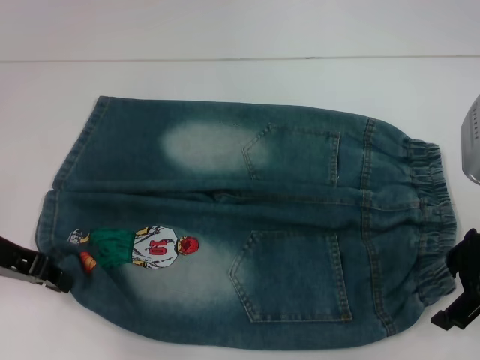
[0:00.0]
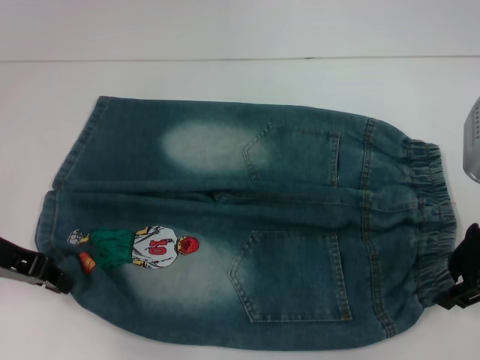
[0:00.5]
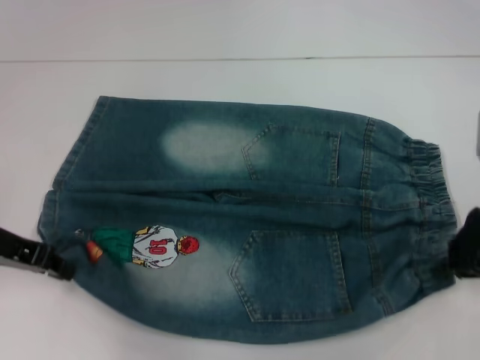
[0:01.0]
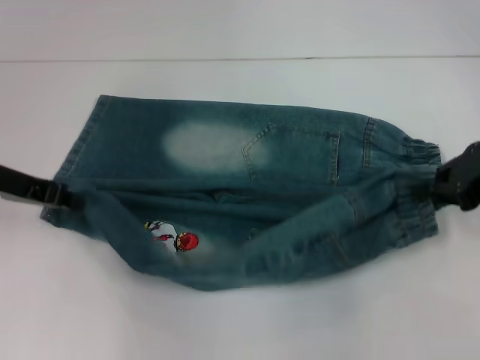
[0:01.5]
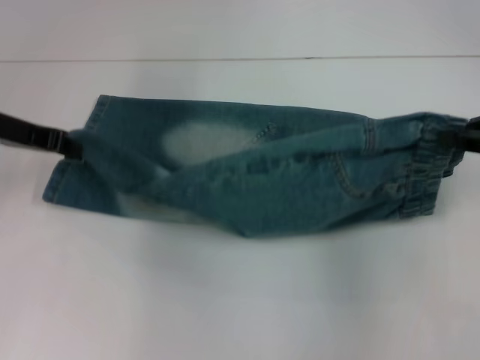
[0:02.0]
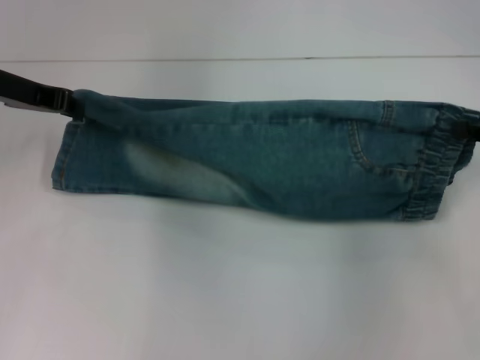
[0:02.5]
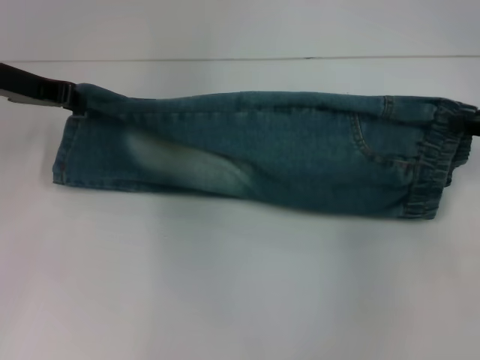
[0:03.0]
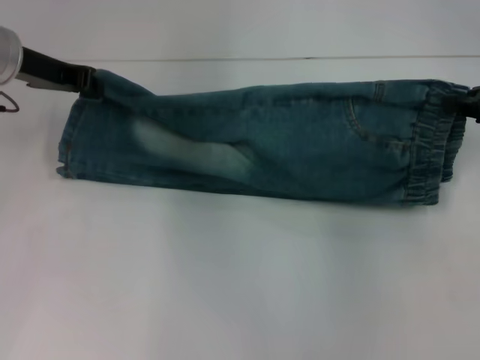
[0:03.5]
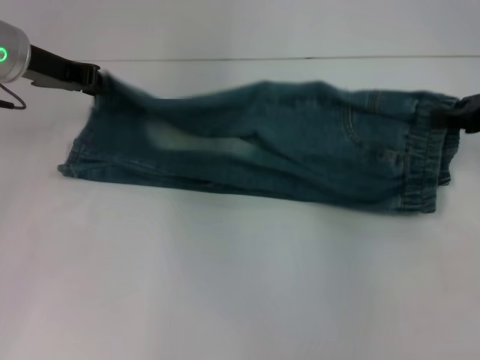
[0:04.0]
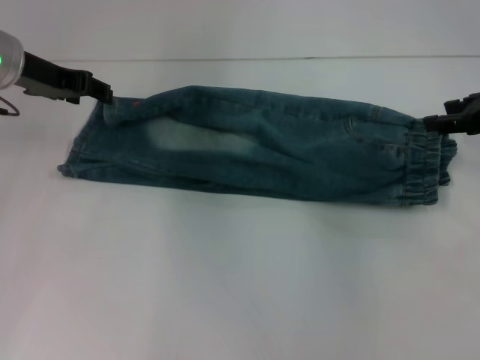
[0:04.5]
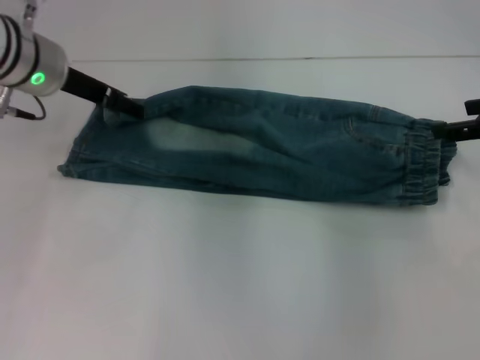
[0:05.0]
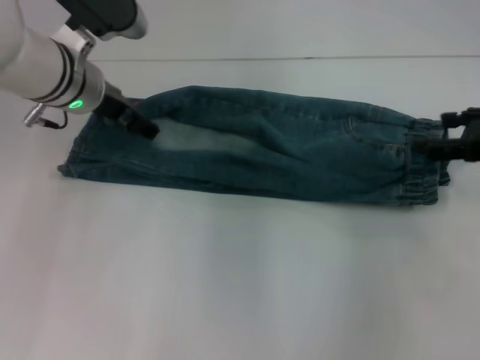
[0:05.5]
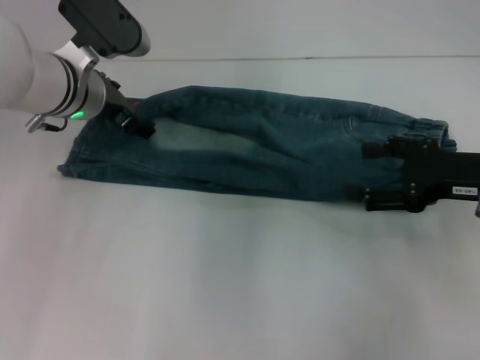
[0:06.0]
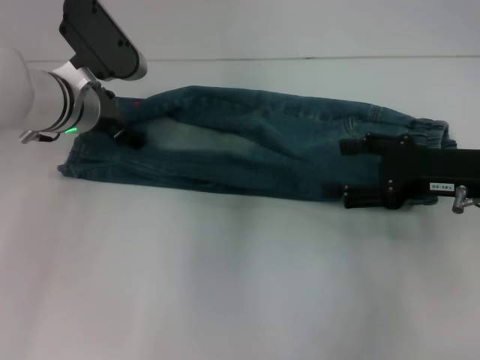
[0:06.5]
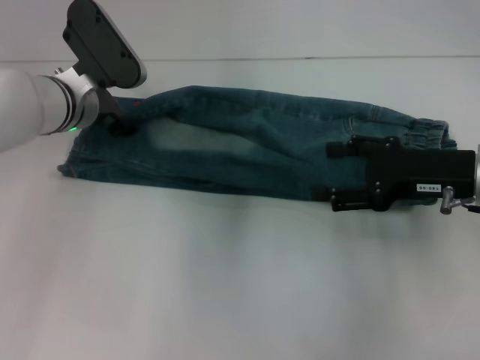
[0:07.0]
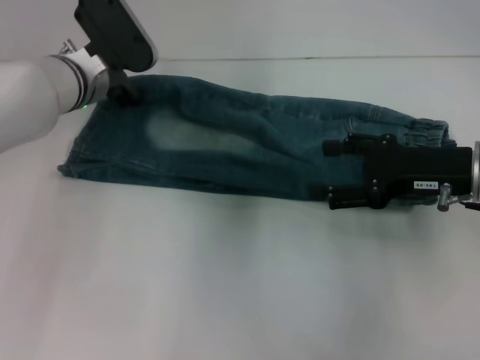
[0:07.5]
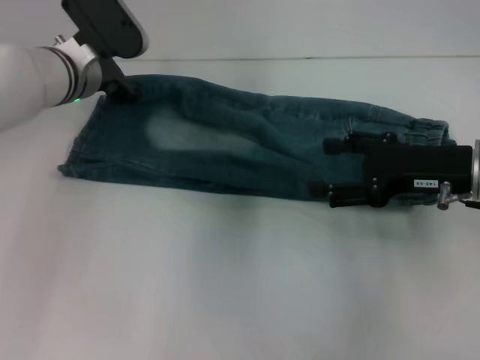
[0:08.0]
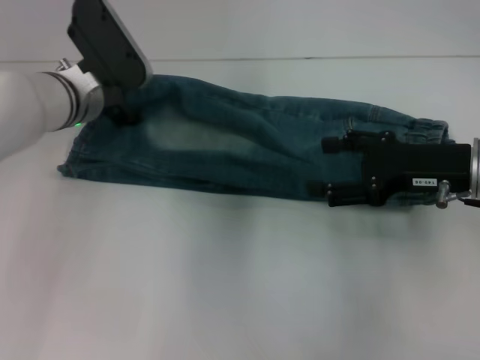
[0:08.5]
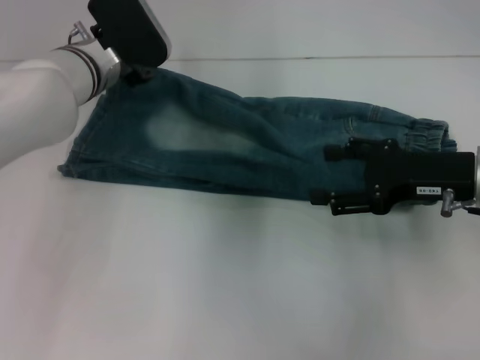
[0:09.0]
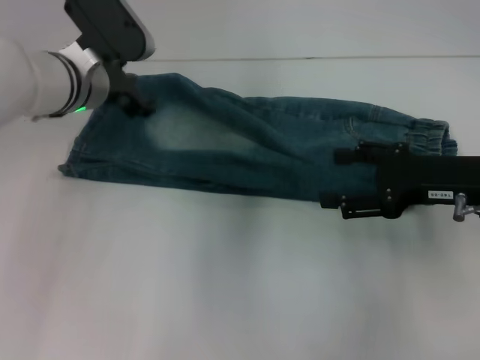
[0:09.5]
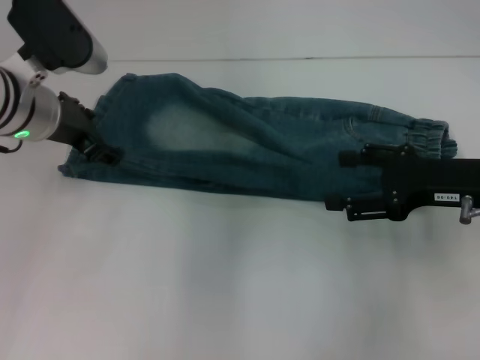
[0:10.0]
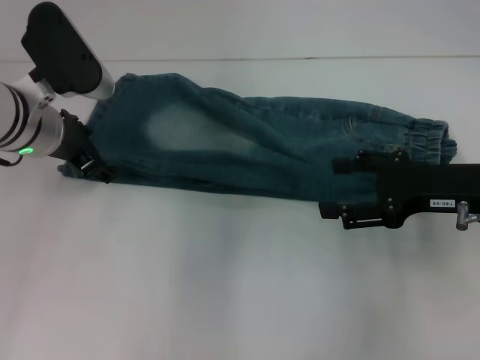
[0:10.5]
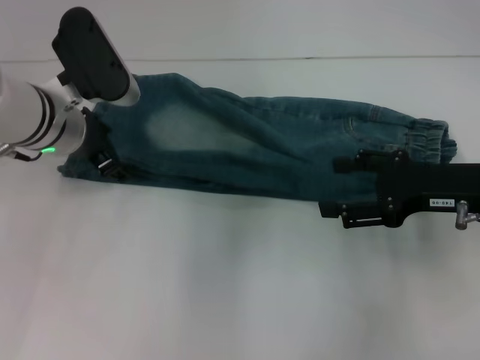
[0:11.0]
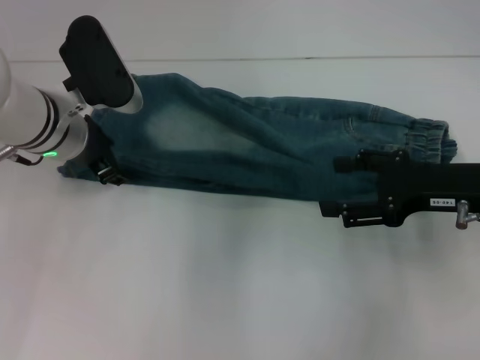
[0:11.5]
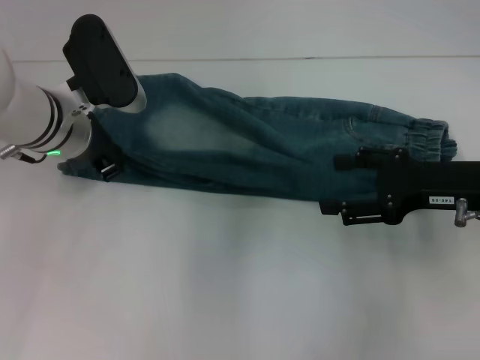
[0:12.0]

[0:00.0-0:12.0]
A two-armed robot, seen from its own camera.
Step, 0:00.5 to 0:04.5: Fold upward with your right hand.
0:00.0 to 0:02.0: The left gripper shifts roughly 5 cm forward, while the right gripper moves to the right, some 5 cm, and closes up.
0:02.0 to 0:04.0: The right gripper ends up about 5 cm from where it was. Meanwhile the left gripper goes some 5 cm forward.
0:04.0 to 0:06.0: The right gripper heads backward, covering about 5 cm, and opens up. Meanwhile the left gripper shifts approximately 10 cm to the right and downward, and opens up.
0:08.0 to 0:10.0: The left gripper shifts approximately 5 cm backward.
0:10.0 to 0:12.0: The left gripper closes its fingers.

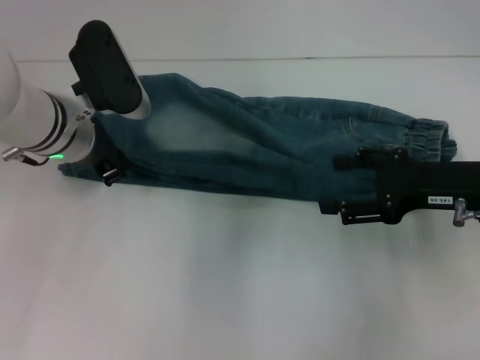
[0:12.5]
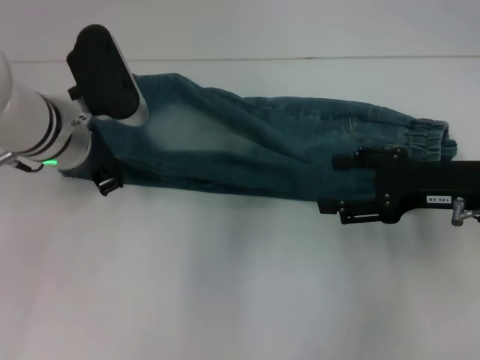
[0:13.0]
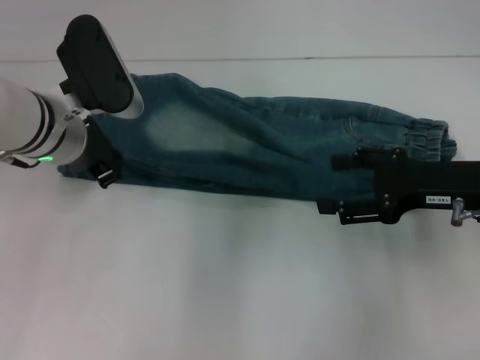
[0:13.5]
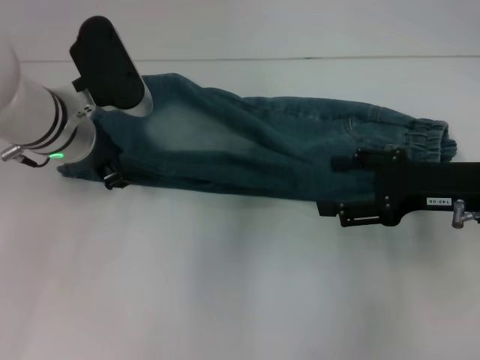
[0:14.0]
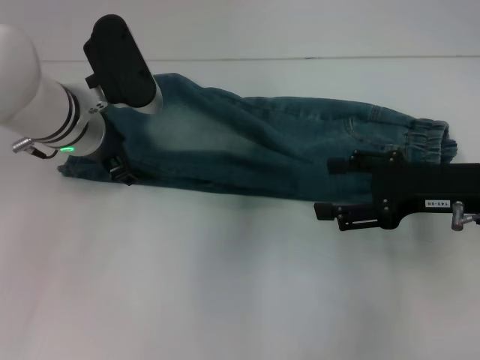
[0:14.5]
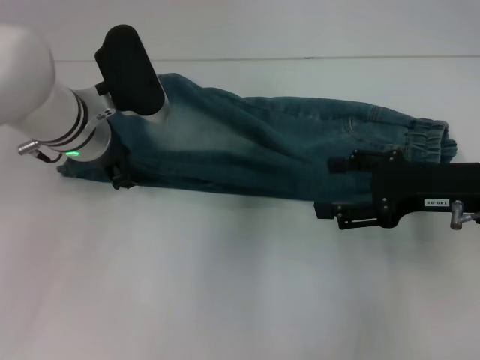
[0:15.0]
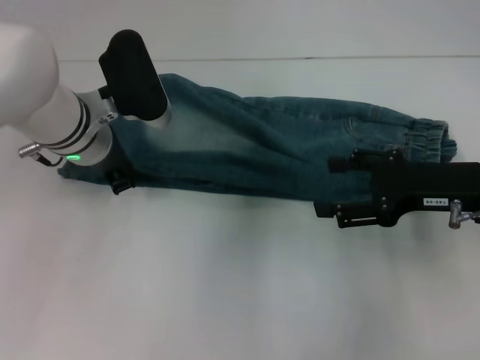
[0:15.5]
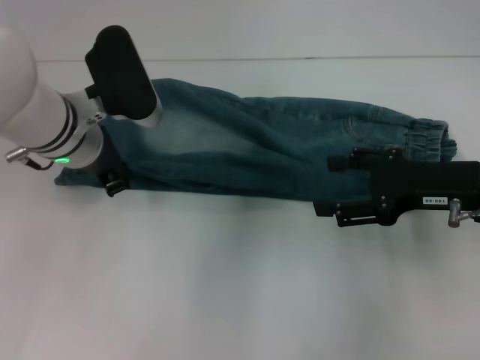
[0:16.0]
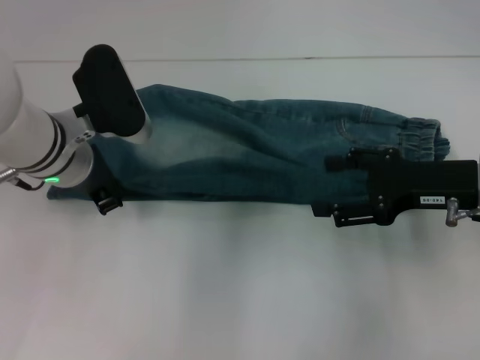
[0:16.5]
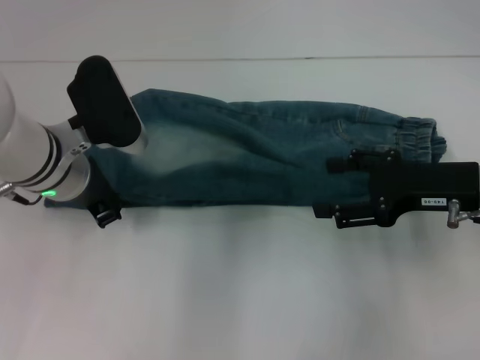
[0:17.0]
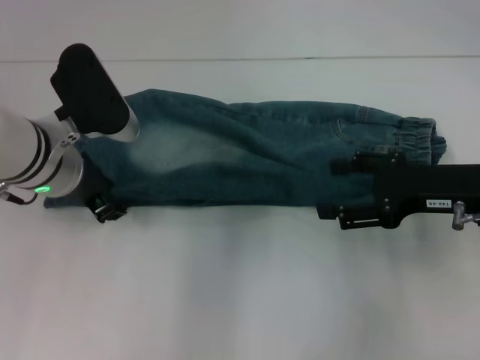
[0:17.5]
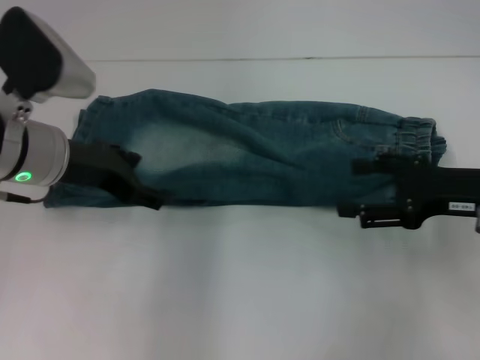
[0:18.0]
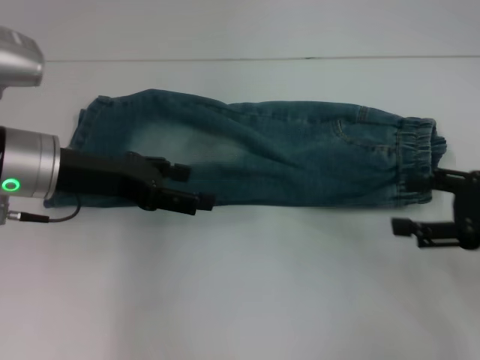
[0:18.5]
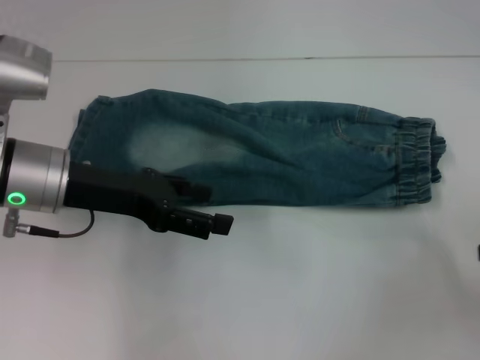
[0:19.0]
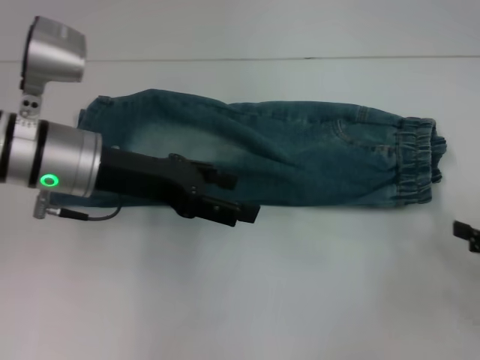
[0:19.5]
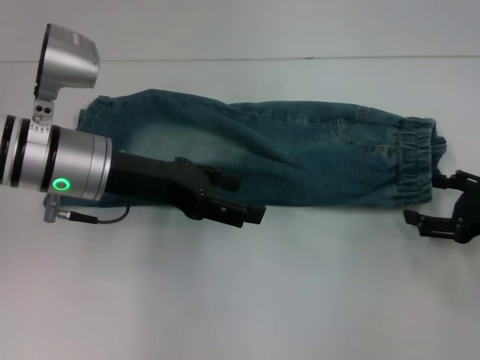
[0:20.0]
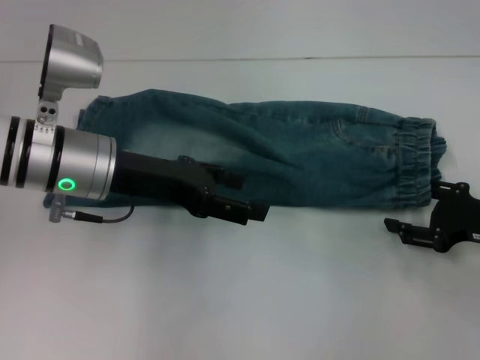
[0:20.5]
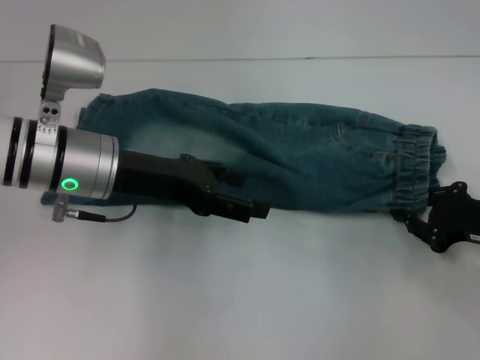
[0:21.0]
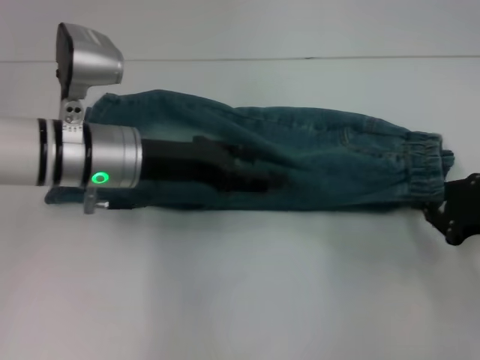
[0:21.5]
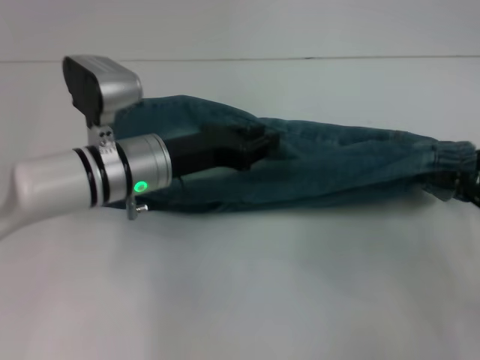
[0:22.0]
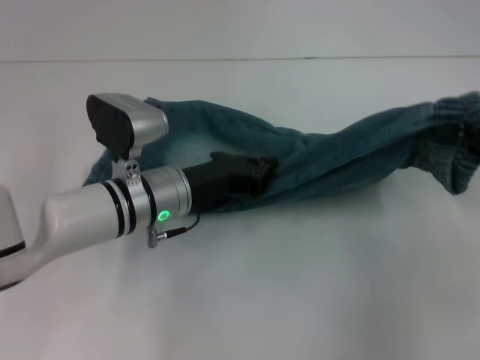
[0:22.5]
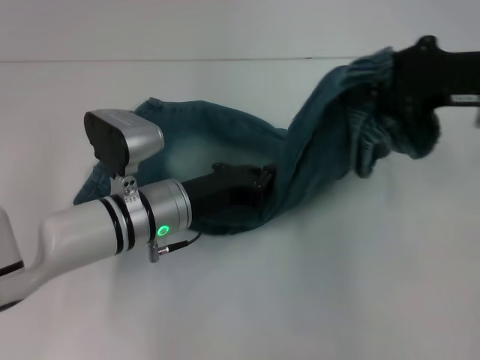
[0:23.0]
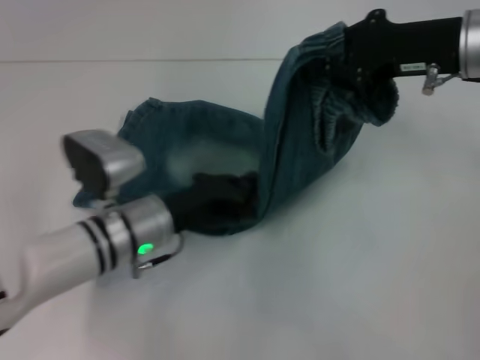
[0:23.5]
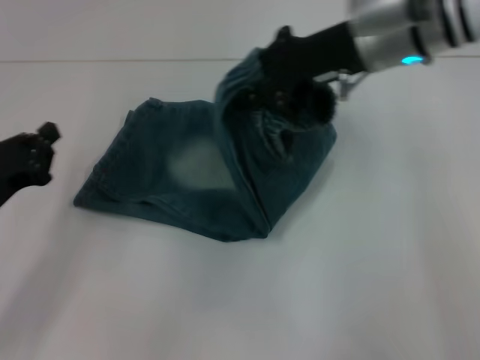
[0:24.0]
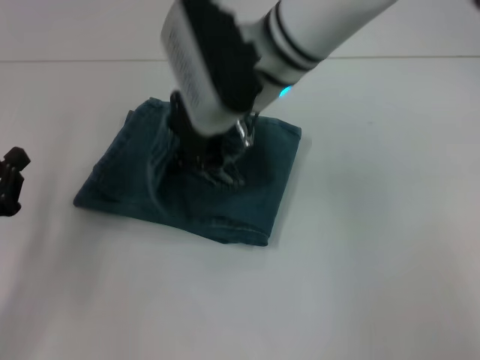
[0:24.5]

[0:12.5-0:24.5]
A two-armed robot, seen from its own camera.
Step, 0:12.5 to 0:20.5: Grab the waistband with your right hand.
Step, 0:21.0 to 0:23.0: Press the middle of the pants with your left hand.
0:12.5 to 0:14.5: The left gripper opens up.
0:14.5 to 0:16.5: The left gripper closes.
0:16.5 to 0:18.5: The left gripper shifts by about 5 cm, and opens its fingers; the right gripper moves to the right, roughly 5 cm.
0:18.5 to 0:20.5: The right gripper is displaced downward by approximately 5 cm, and moves approximately 5 cm backward and comes back.
0:20.5 to 0:22.5: The left gripper travels downward and to the right by about 10 cm, and closes; the right gripper is displaced upward by some 15 cm, and closes up.
0:22.5 to 0:24.5: The right gripper shifts about 30 cm to the left. Meanwhile the left gripper travels to the left and backward by some 25 cm.

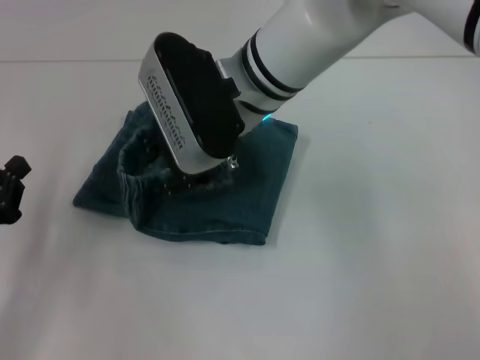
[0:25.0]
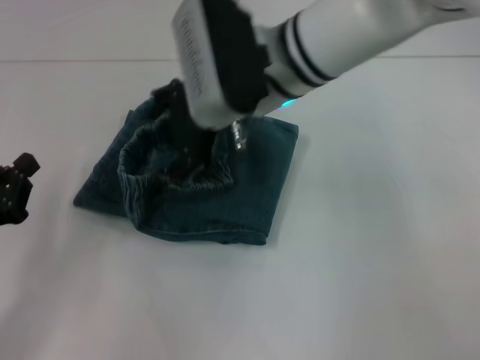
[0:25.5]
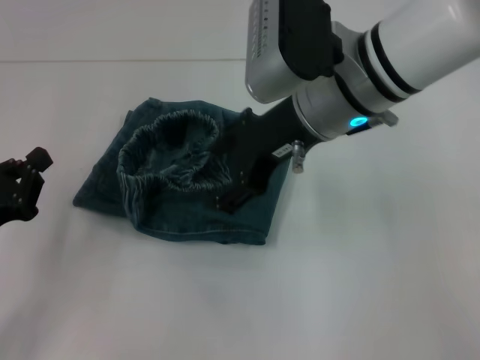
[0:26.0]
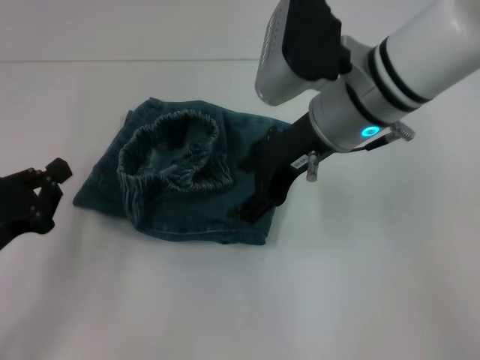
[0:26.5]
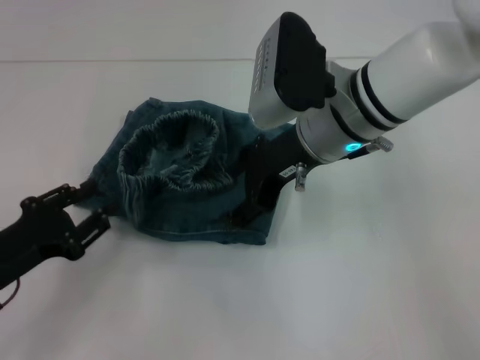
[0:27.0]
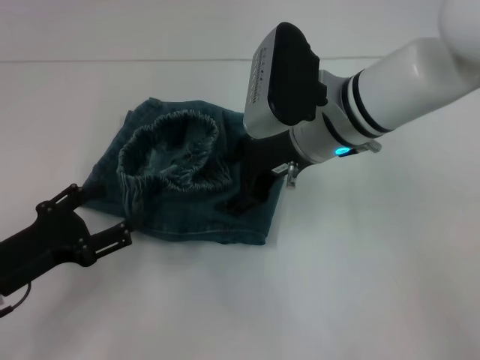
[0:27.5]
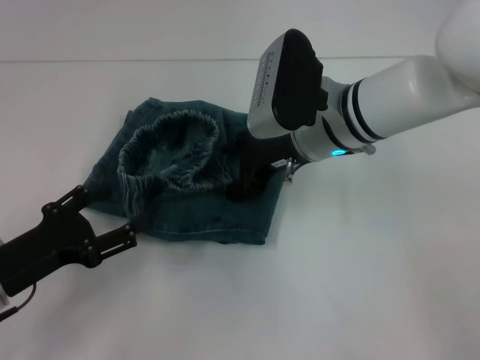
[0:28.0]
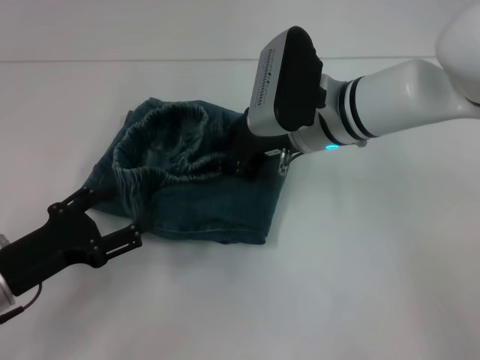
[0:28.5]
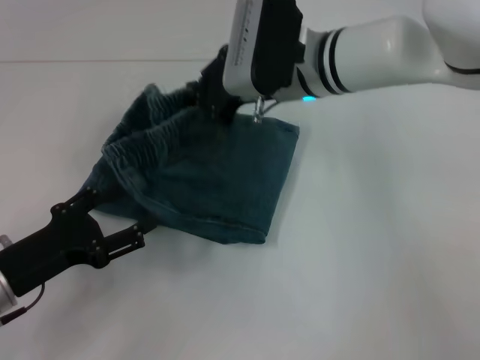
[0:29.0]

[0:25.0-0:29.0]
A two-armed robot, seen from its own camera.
Step, 0:25.0 to 0:27.0: Fold to the left with your right hand.
0:25.0 to 0:27.0: The right gripper travels to the right by approximately 10 cm, and opens up.
0:27.0 to 0:29.0: The left gripper opens its fingers; the right gripper travels forward by some 5 cm, and closes up.
